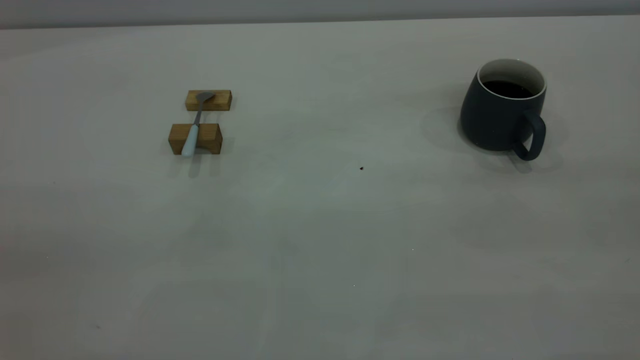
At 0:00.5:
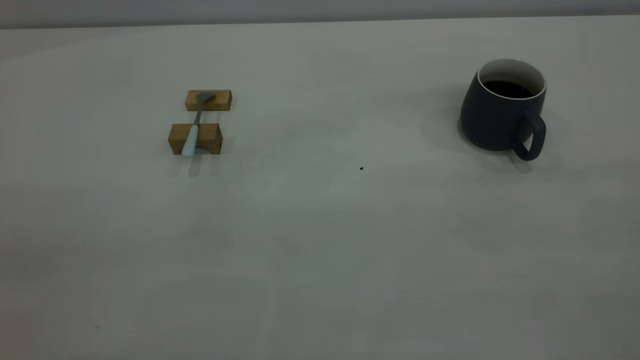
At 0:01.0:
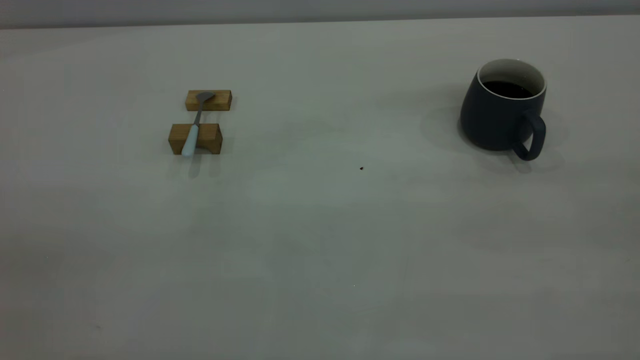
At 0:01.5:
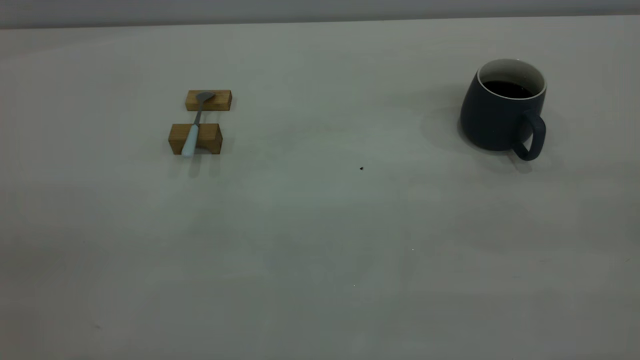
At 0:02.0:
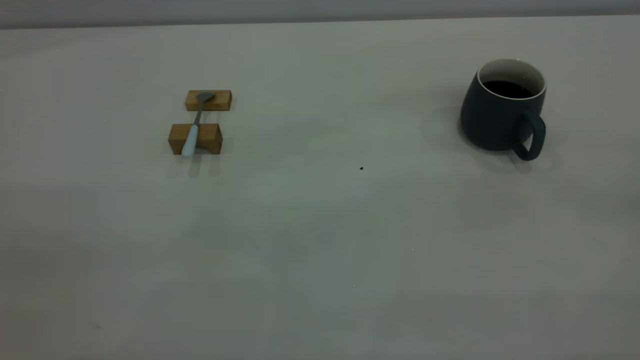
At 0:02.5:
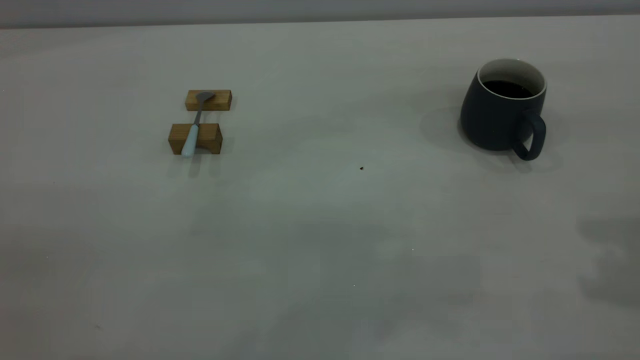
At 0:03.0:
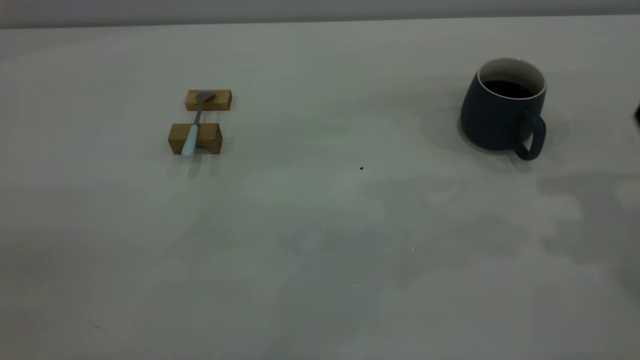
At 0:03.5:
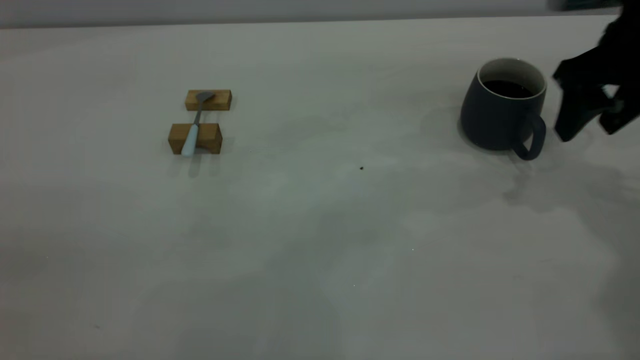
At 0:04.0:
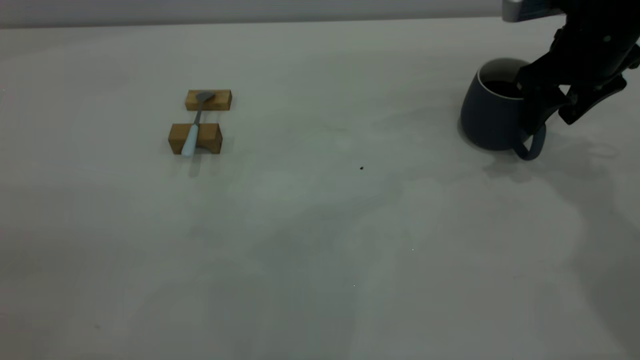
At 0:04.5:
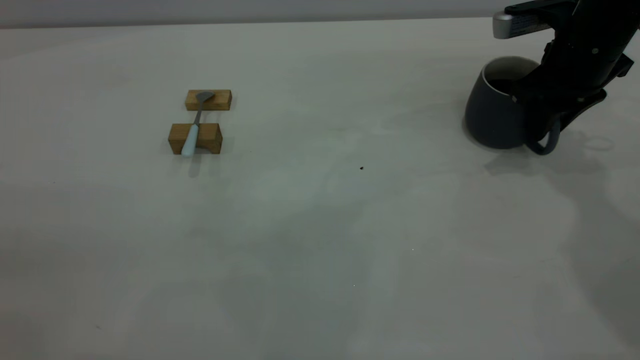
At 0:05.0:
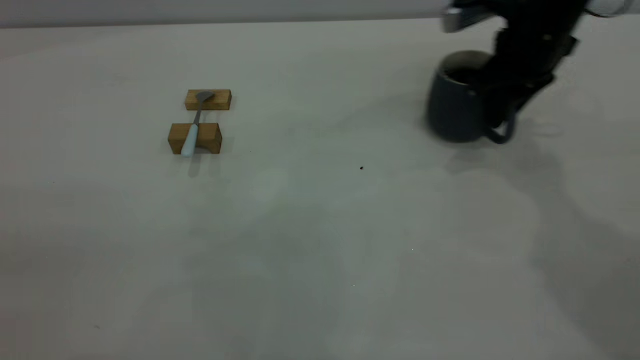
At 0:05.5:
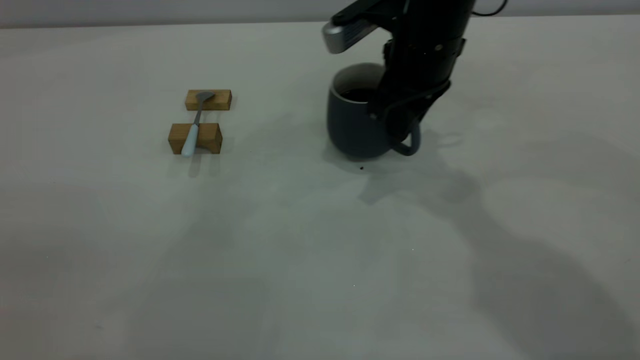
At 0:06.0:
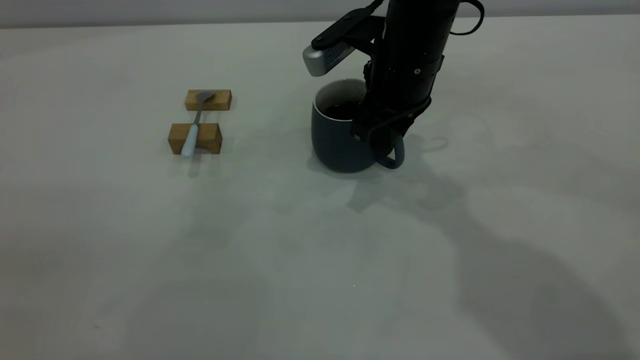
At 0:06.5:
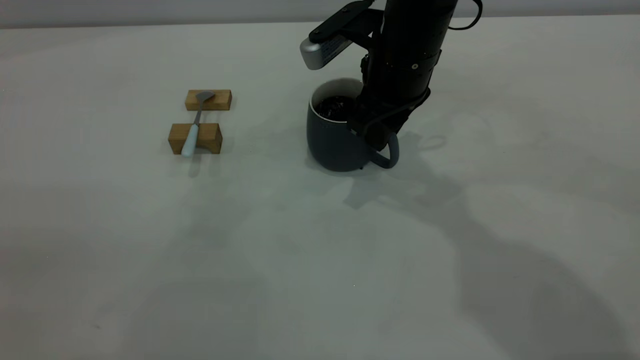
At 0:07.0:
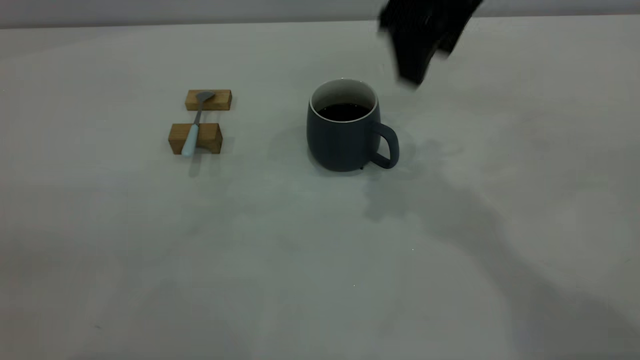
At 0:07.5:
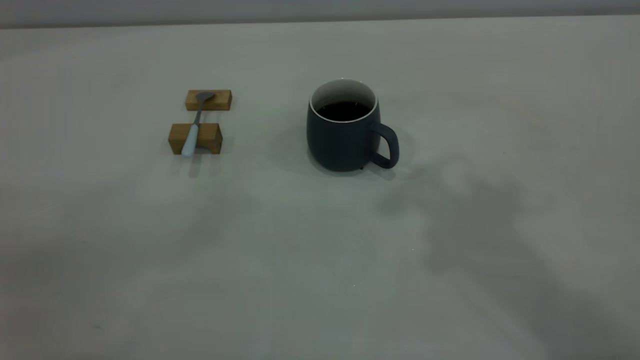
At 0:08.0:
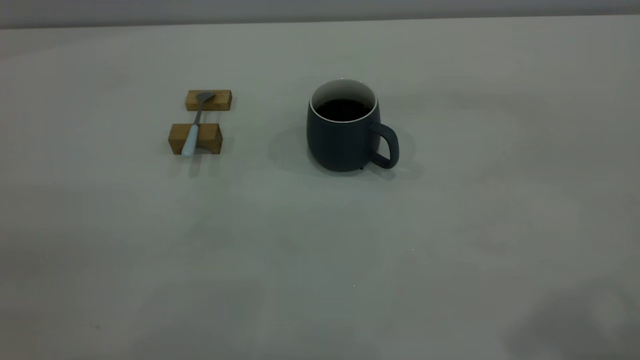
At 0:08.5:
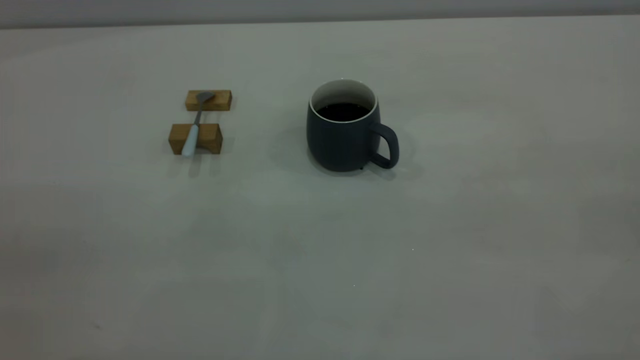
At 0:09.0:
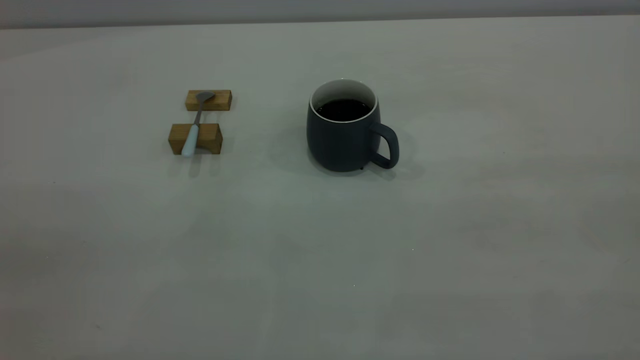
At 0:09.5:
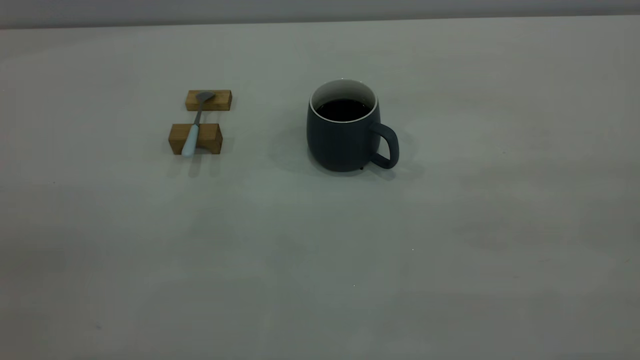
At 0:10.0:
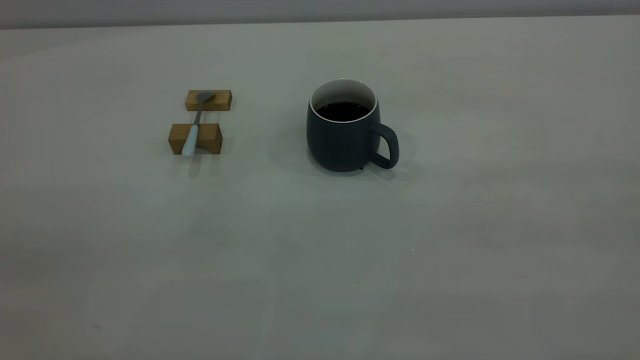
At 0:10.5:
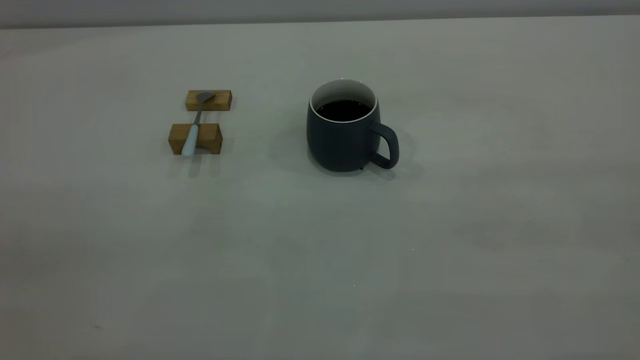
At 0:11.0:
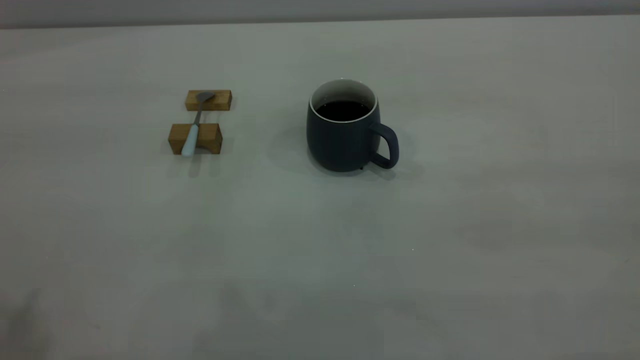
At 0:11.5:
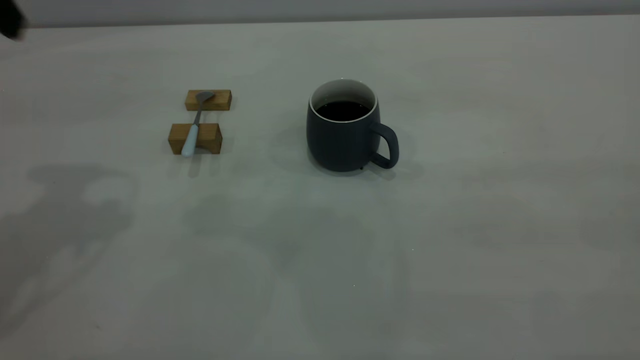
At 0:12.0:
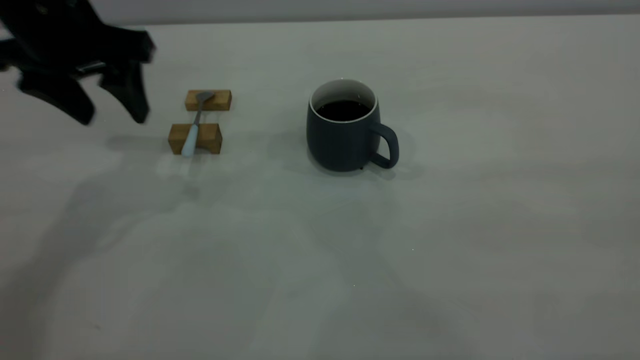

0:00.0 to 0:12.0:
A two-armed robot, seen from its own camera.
Step, 0:00.0 to 0:06.5: Move the cup with coffee to the center of view.
0:02.0 to 0:04.0: The right gripper moves forward and downward, some 40 cm.
0:04.0 to 0:06.0: The right gripper goes approximately 20 cm to the left, and closes its fingers.
0:06.0 to 0:08.0: The right gripper heads backward, upward and to the right, covering about 40 cm, and opens up.
0:10.0 to 0:12.0: The left gripper travels forward and downward by approximately 40 cm.

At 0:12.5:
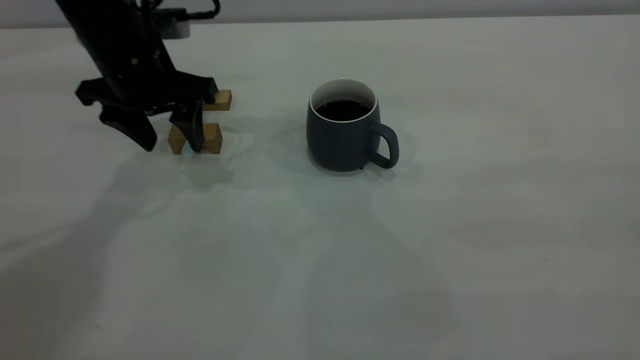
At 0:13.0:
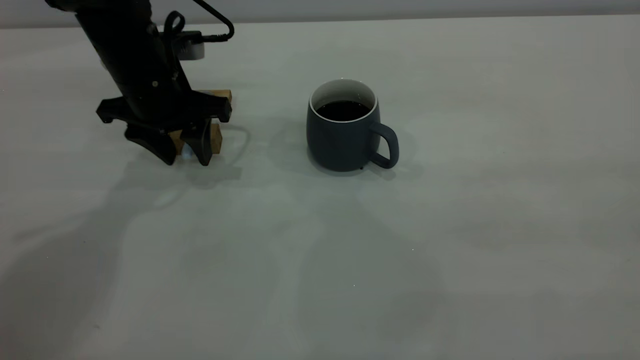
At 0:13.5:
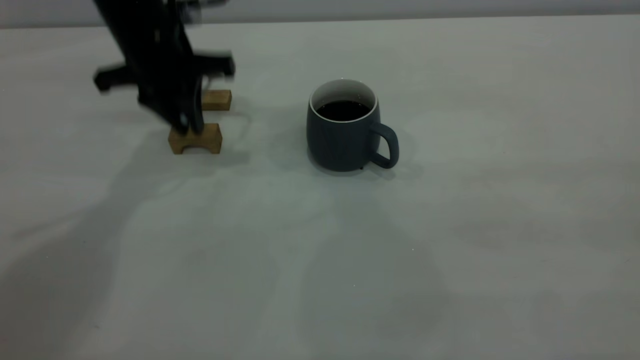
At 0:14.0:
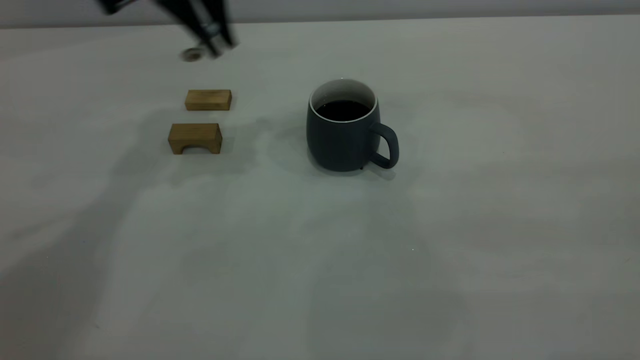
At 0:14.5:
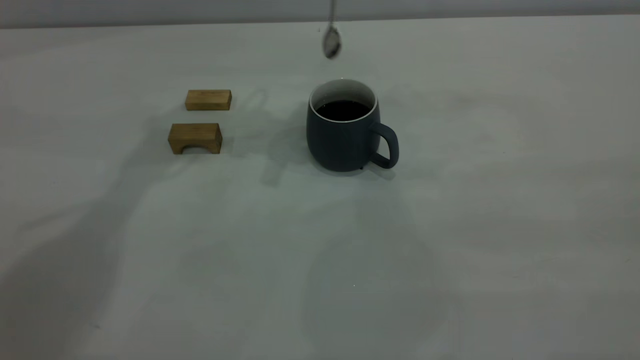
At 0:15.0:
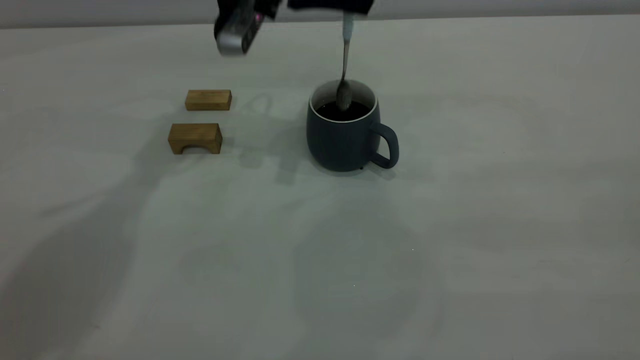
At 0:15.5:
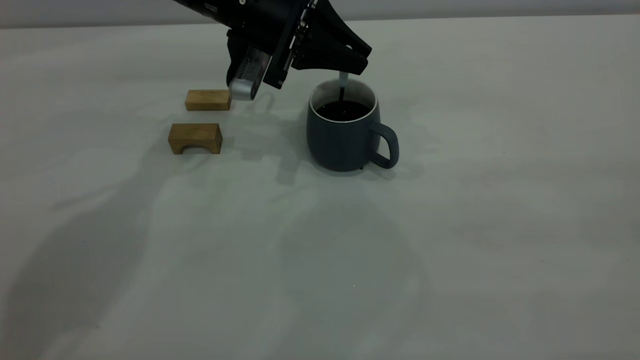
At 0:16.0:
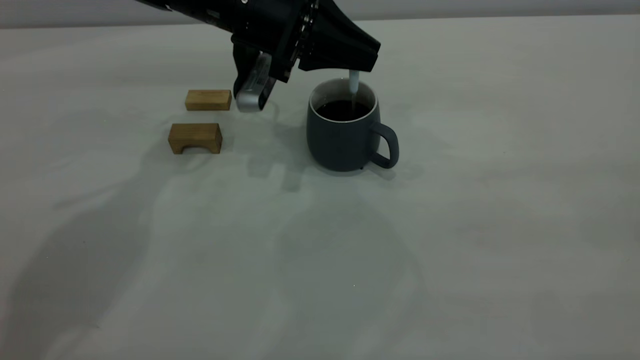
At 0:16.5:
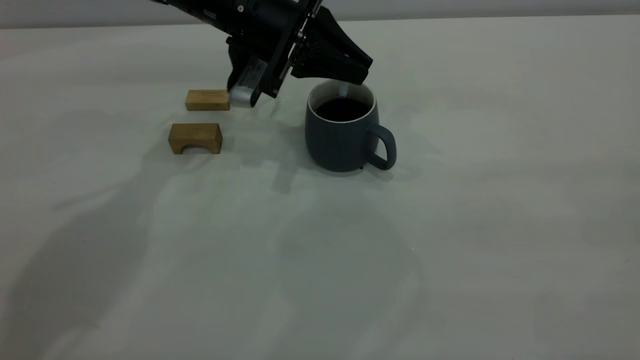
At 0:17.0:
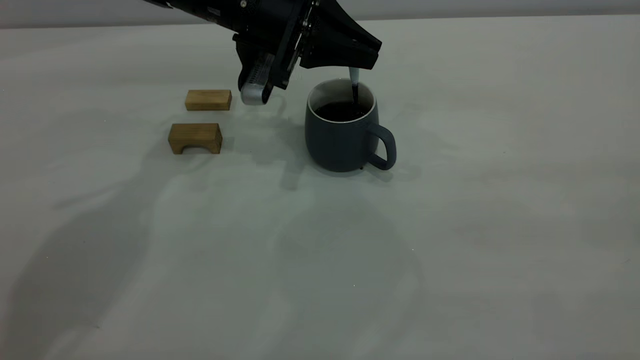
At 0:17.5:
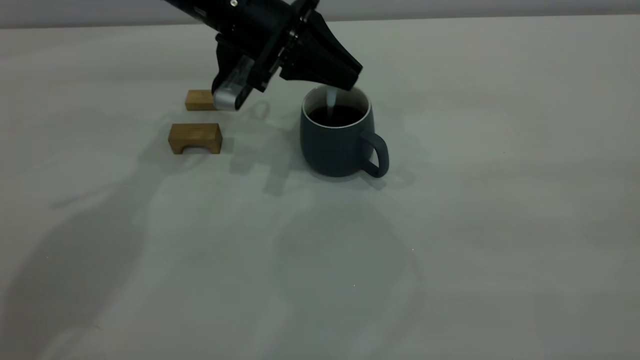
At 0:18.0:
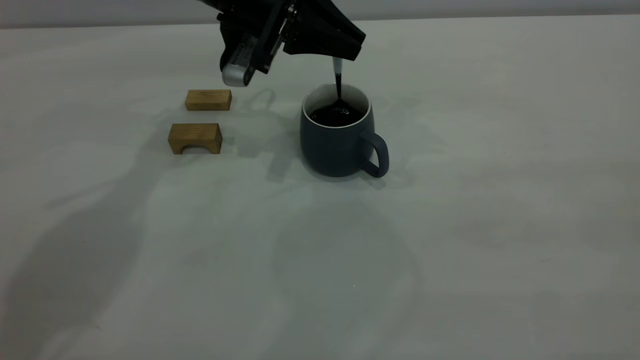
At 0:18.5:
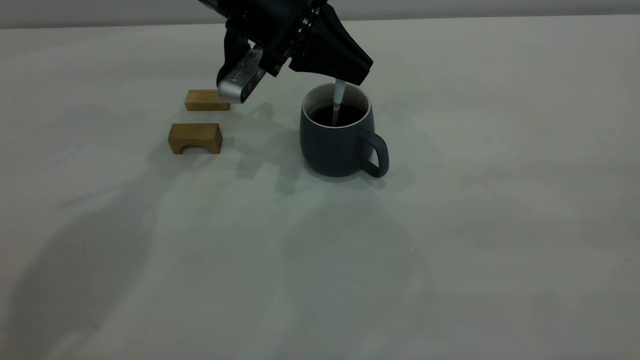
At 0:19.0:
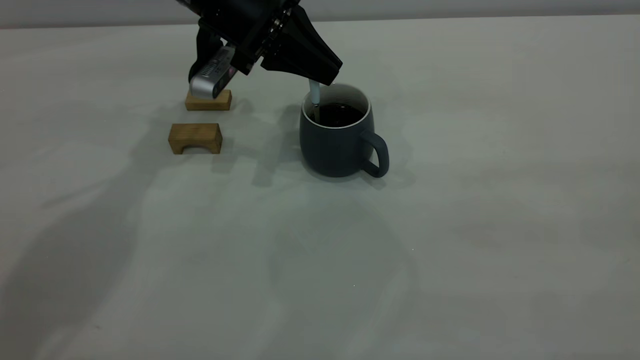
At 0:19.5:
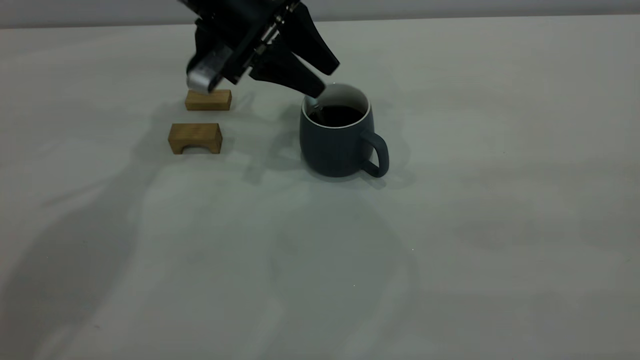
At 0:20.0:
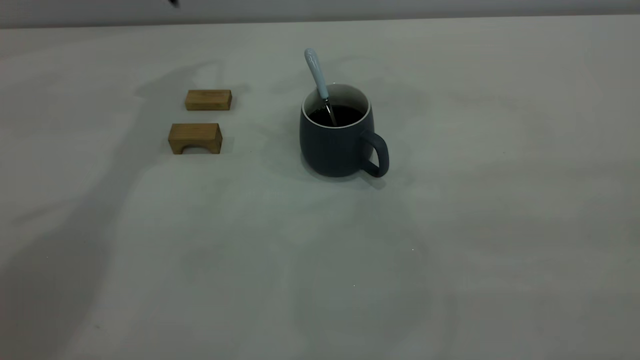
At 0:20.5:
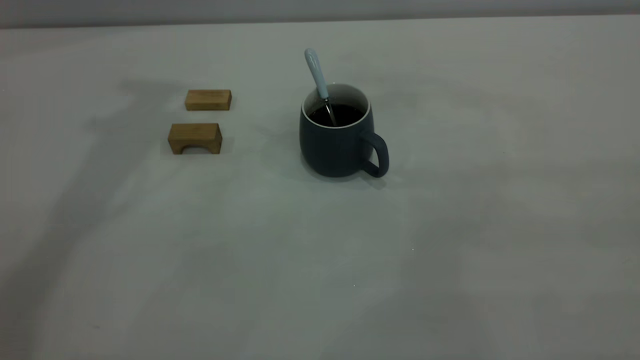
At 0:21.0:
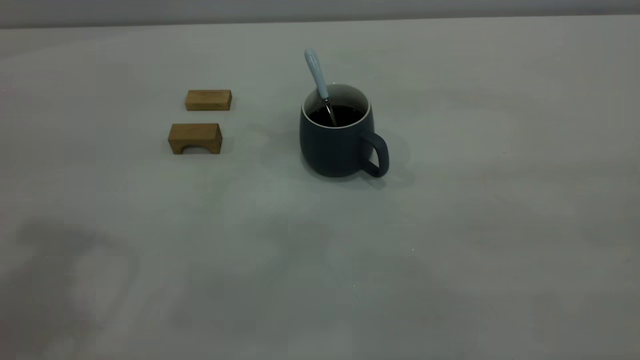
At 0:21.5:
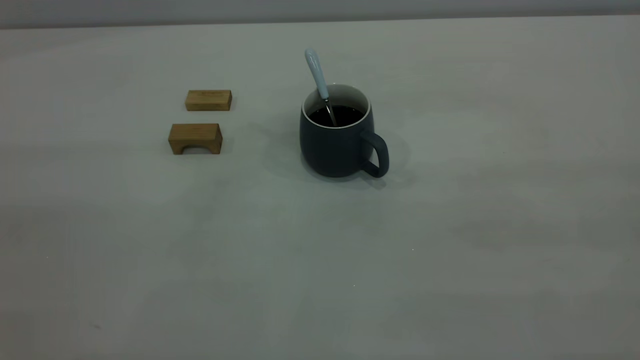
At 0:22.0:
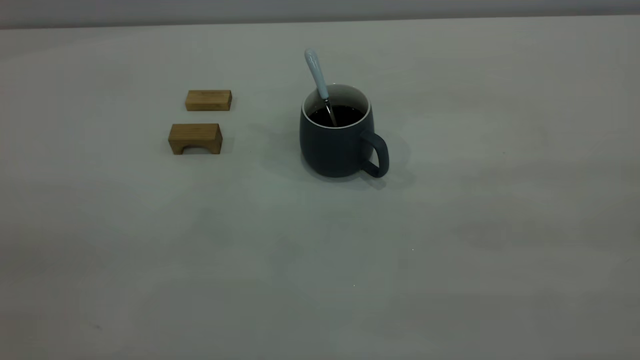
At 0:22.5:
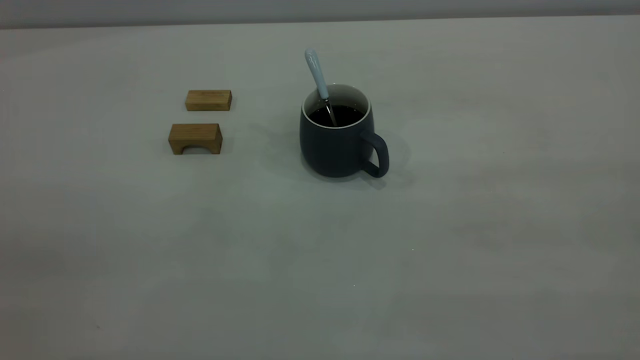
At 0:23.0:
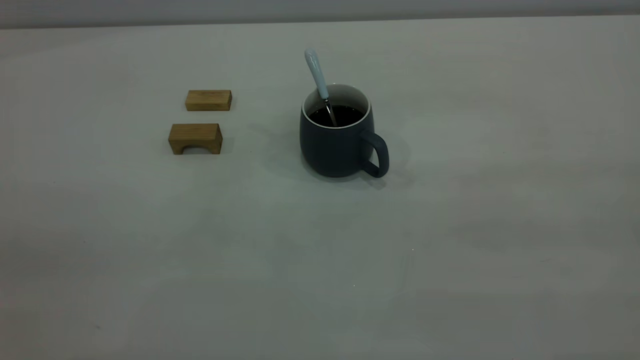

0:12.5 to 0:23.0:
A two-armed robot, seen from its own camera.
Step, 0:14.0 to 0:19.5: Stir the coffee in the cup.
0:12.5 to 0:14.5: The left gripper moves upward and to the right, approximately 15 cm, and closes up.
0:14.5 to 0:16.5: The left gripper heads downward, covering approximately 10 cm.
0:19.0 to 0:21.0: The left gripper heads backward, upward and to the left, covering approximately 35 cm, and opens up.
